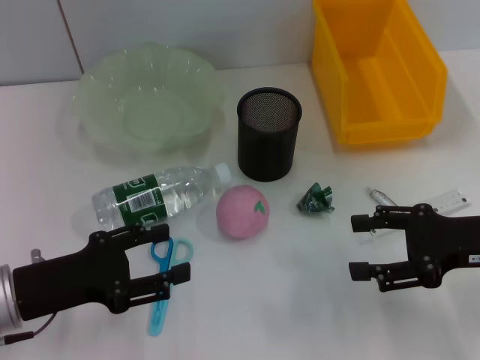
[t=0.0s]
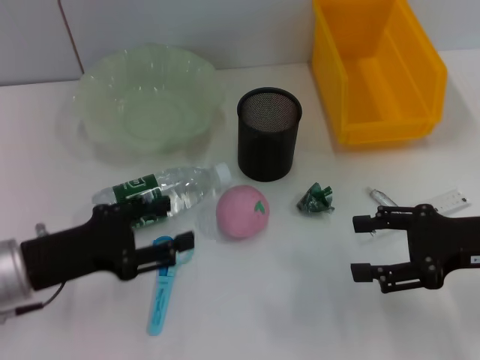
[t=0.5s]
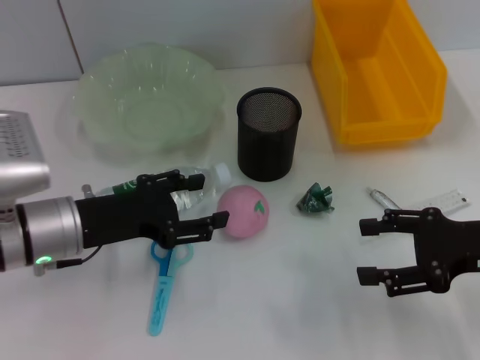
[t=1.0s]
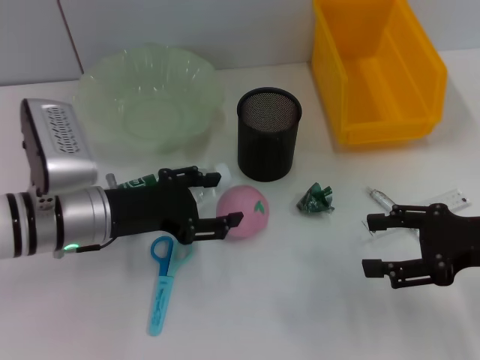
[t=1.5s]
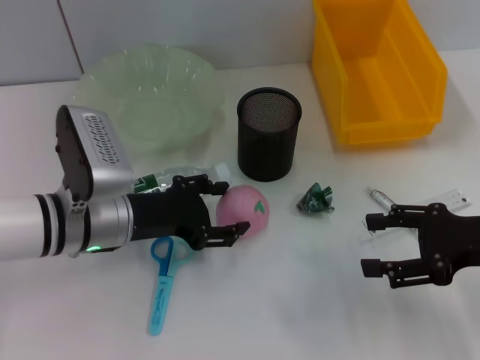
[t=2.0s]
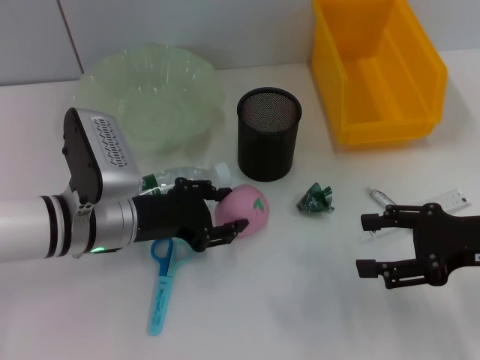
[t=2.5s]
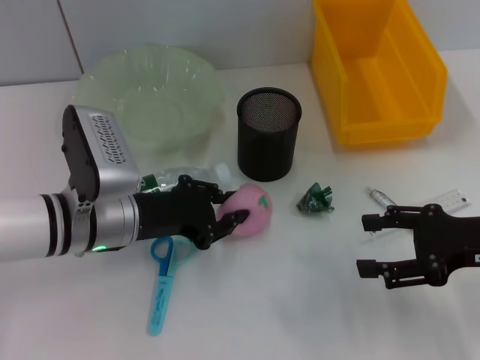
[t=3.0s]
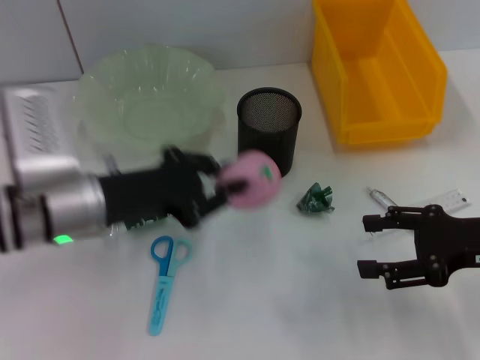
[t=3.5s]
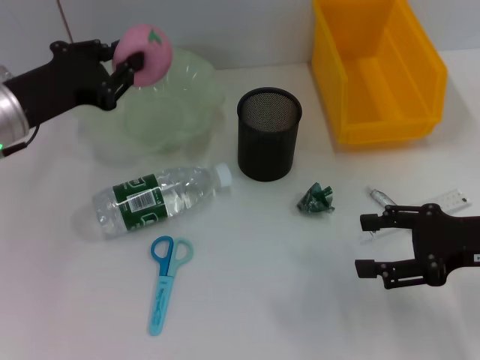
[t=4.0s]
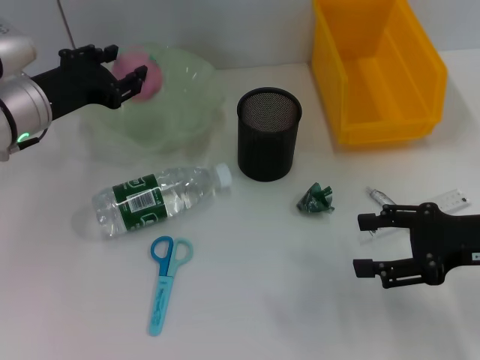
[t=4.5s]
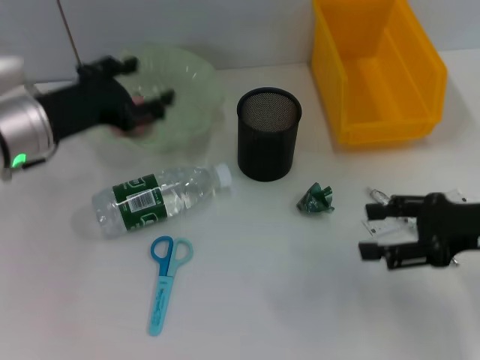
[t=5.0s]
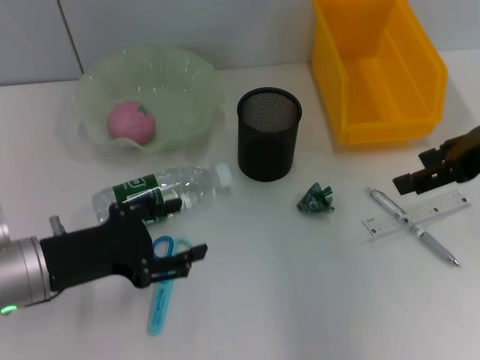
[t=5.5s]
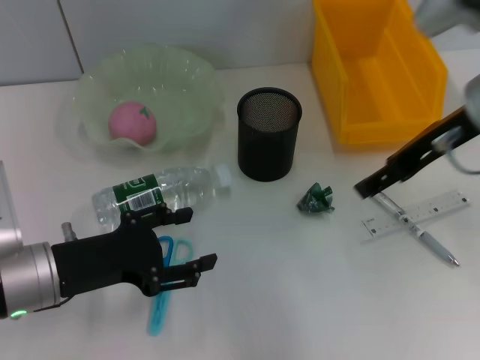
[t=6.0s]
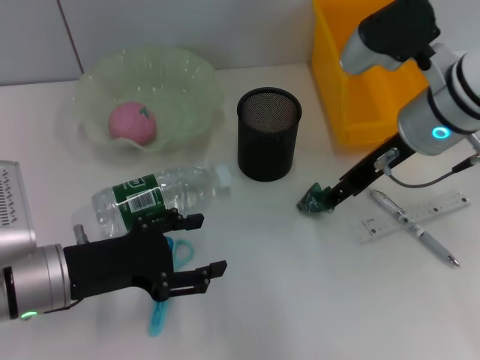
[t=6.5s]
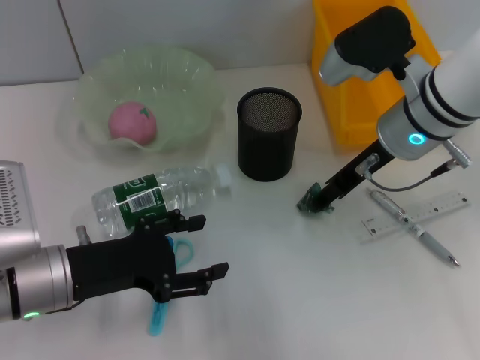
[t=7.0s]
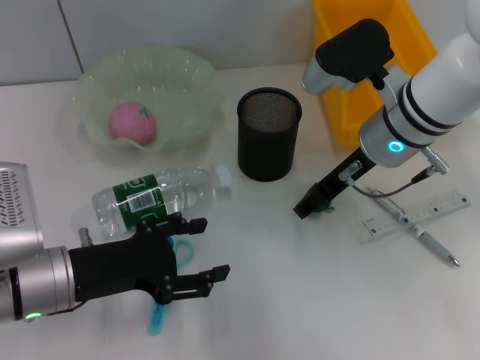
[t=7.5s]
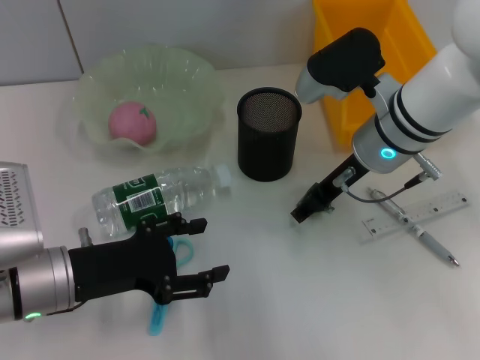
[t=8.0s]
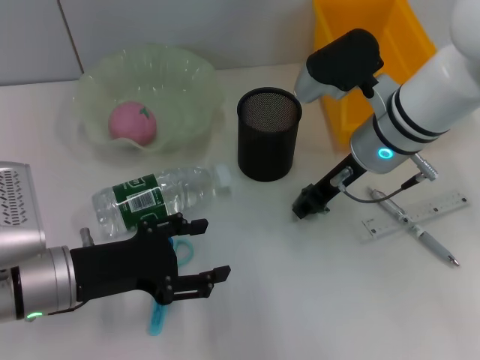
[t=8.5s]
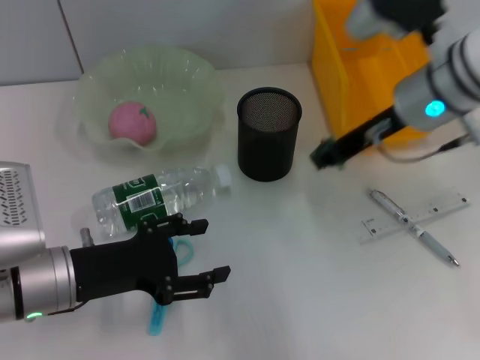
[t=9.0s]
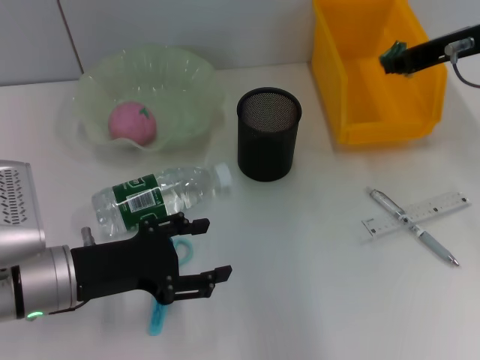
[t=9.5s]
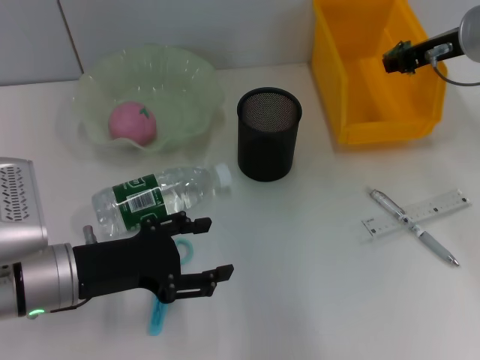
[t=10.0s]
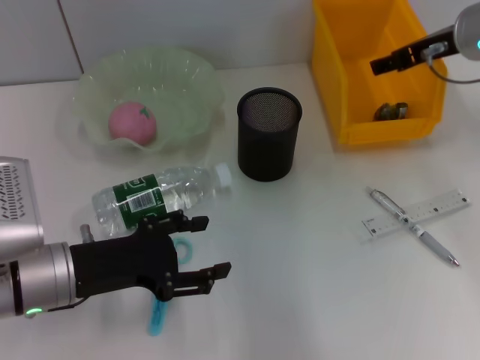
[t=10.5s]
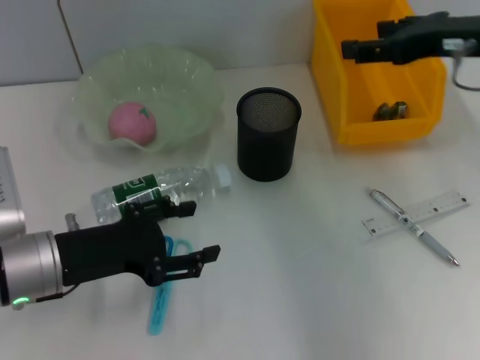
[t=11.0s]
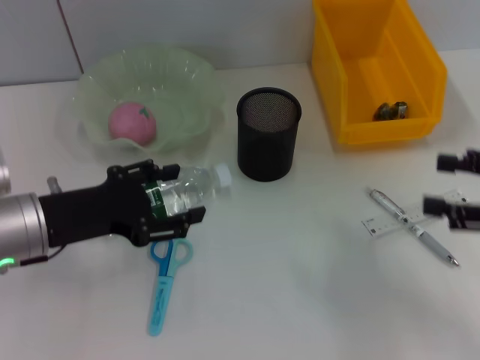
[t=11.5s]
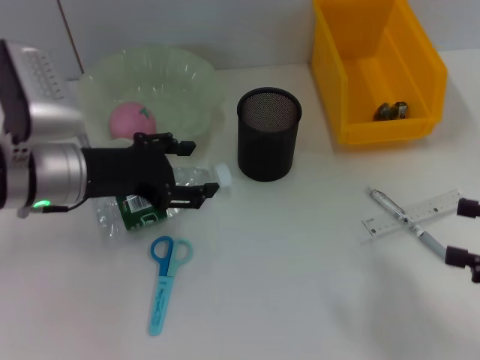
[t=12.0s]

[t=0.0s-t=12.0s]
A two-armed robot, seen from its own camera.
Step, t=0.0s to t=2.5s: Grab the peach with the left hand.
Step, t=3.0s to t=4.5s: Place the peach into the fruit bowl with the left hand.
Step, t=5.0s to t=8.5s: Grab the plastic with the right hand.
Step, t=9.0s to t=10.0s: Place the plastic into the trash can with the right hand.
t=0.0s to t=2.0s: The left gripper heads to the right and forward, covering approximately 10 cm.
t=2.0s to t=4.0s: The left gripper travels upward and to the left by roughly 10 cm, and closes its fingers.
t=4.0s to t=6.0s: The left gripper travels backward and downward by some 15 cm, and opens up, while the right gripper shifts roughly 15 cm upward, forward and to the left.
t=6.0s to t=8.0s: The right gripper heads downward and to the left, covering some 10 cm.
t=8.0s to t=10.0s: The right gripper goes some 10 cm to the right and upward, and closes.
t=10.0s to t=12.0s: The right gripper travels backward, to the right and downward by some 25 cm, and opens up; the left gripper travels forward and upward by approximately 10 cm.

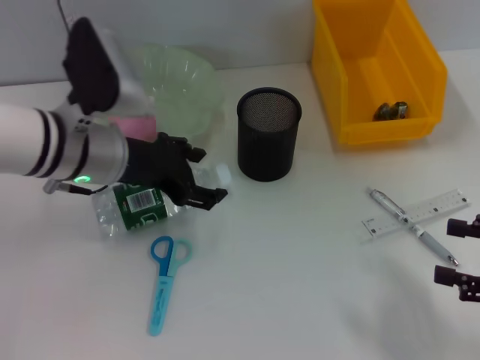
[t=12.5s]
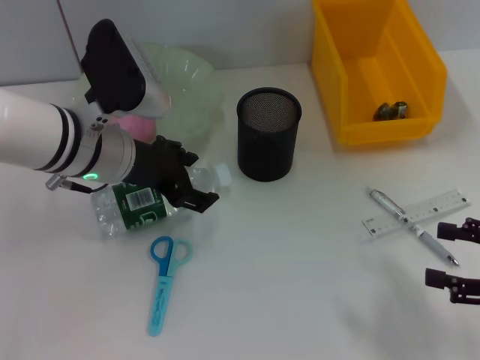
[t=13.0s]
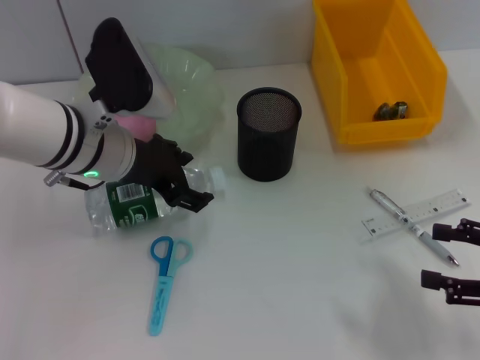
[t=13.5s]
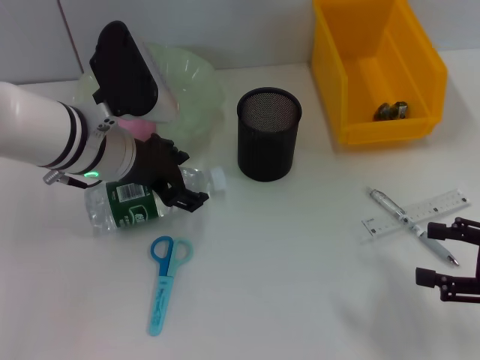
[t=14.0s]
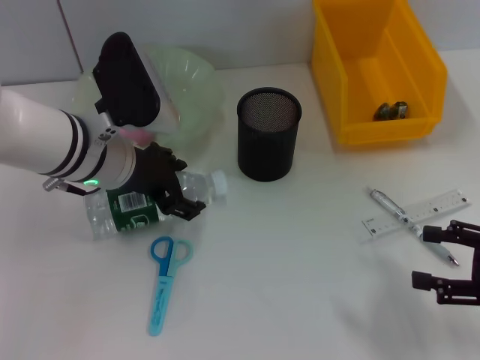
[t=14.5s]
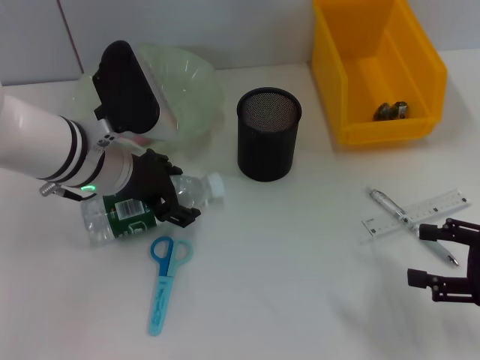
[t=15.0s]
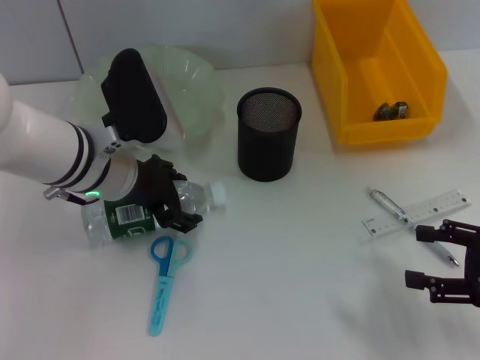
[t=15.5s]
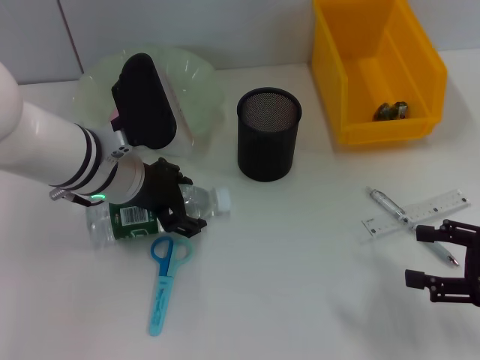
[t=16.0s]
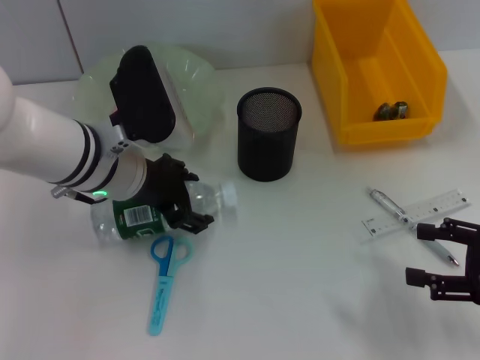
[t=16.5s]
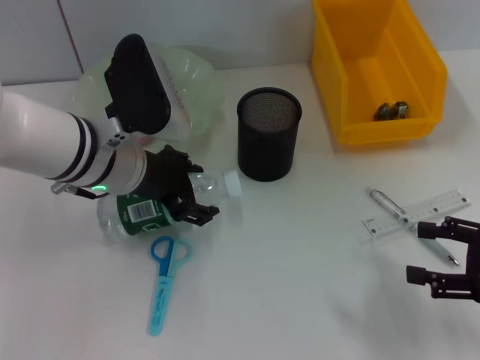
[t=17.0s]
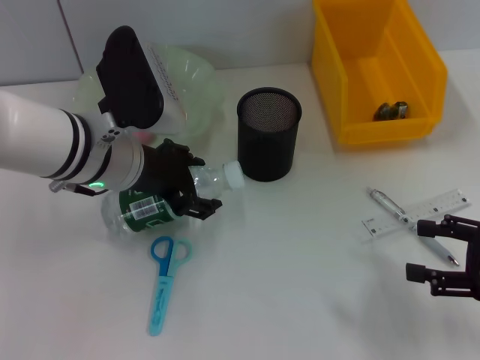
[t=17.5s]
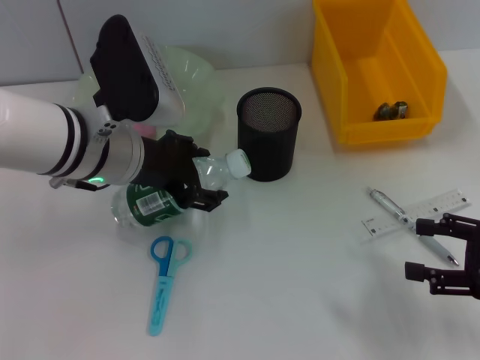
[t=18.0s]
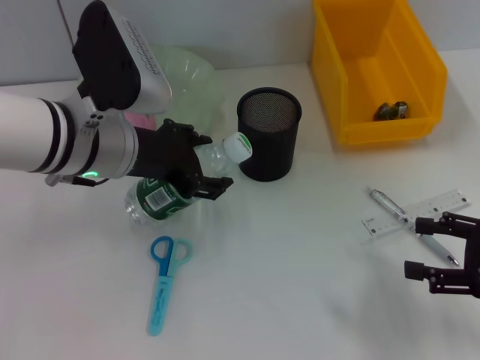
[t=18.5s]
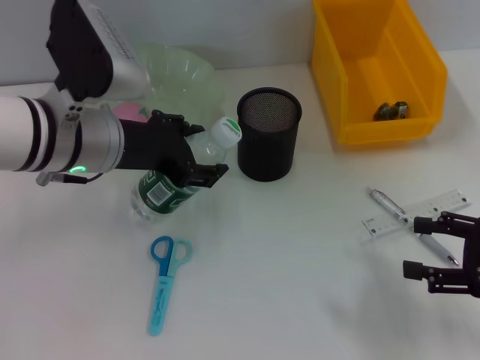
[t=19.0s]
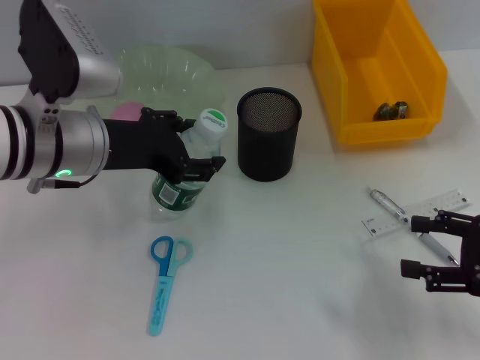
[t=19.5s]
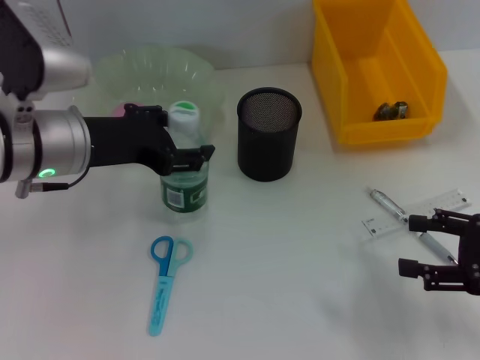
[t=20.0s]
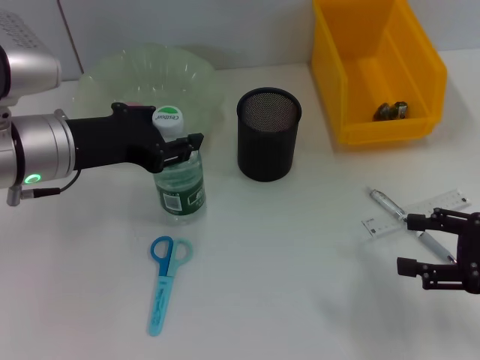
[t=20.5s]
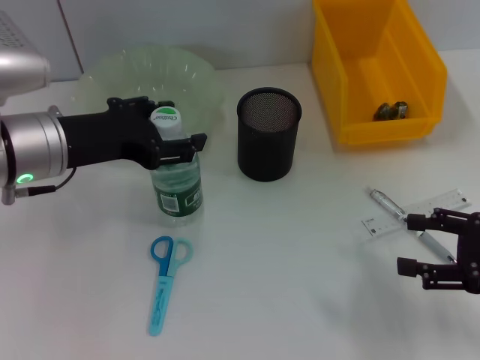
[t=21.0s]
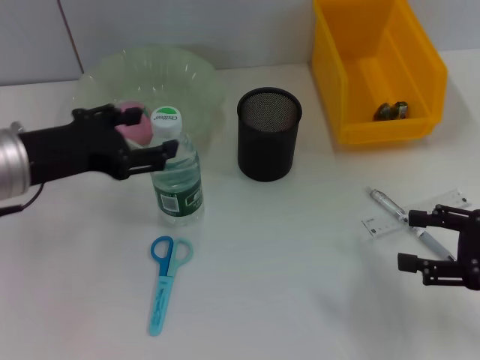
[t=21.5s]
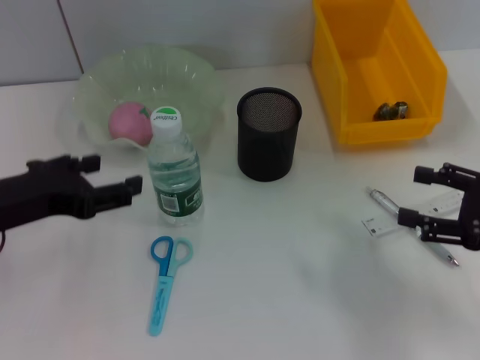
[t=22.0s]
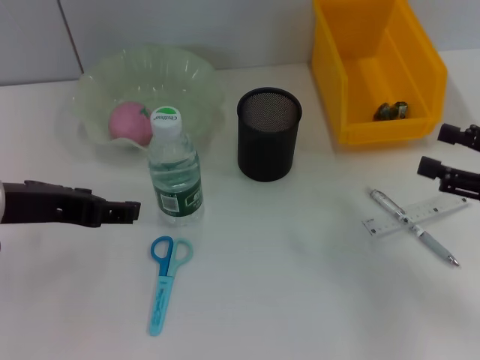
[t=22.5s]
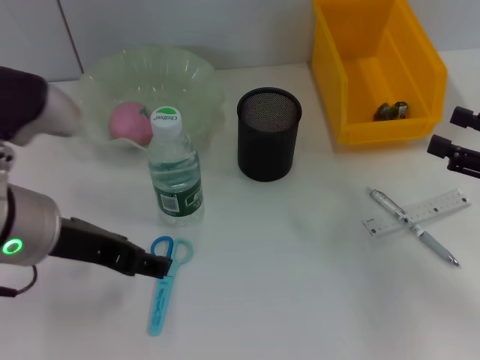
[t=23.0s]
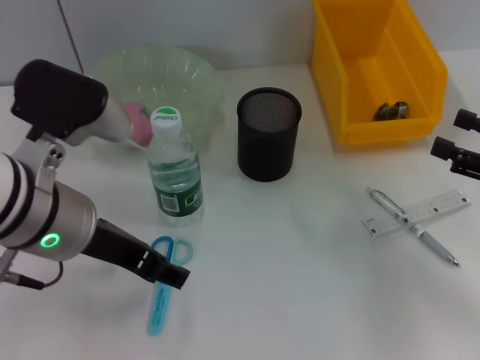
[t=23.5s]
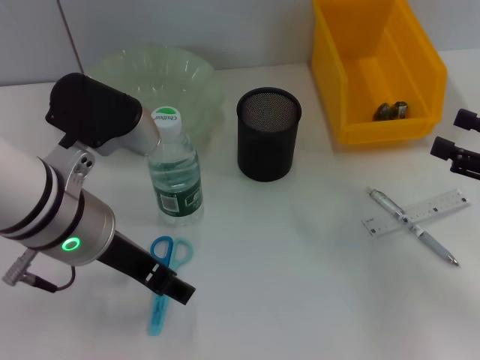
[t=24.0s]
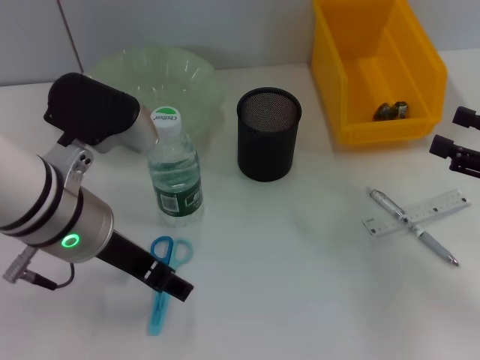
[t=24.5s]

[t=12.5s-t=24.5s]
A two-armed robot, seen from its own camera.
Step, t=12.5s to t=16.0s: Grab the water bottle with the left hand.
Step, t=16.5s to t=20.5s: Place the water bottle on the table with the left hand.
t=12.5s to t=18.5s: The grippers stay close to where they were, moving slightly.
t=18.5s to t=20.5s: The left gripper shifts some 5 cm to the left, and closes.
t=20.5s to t=22.5s: The left gripper goes some 5 cm backward, and opens up.
t=22.5s to t=24.5s: The left gripper shifts roughly 5 cm to the right.

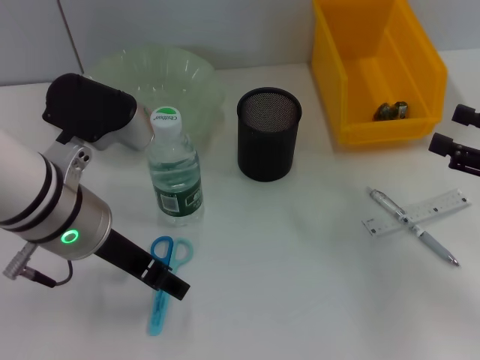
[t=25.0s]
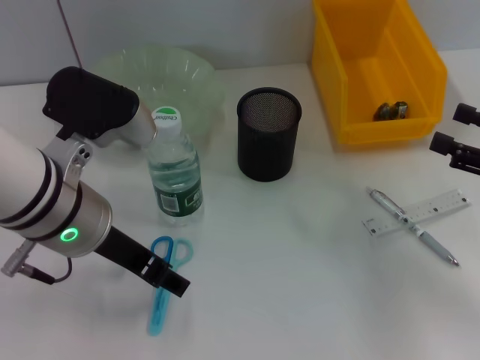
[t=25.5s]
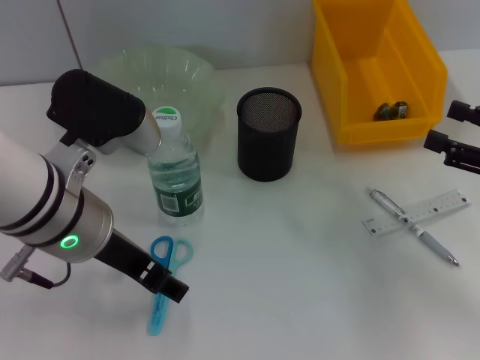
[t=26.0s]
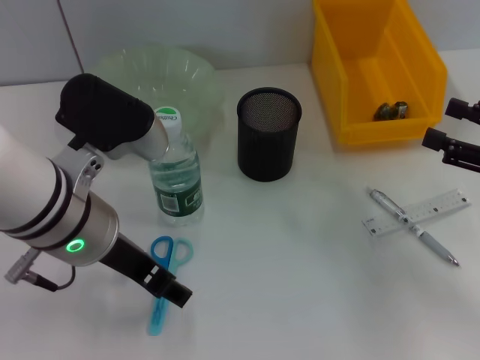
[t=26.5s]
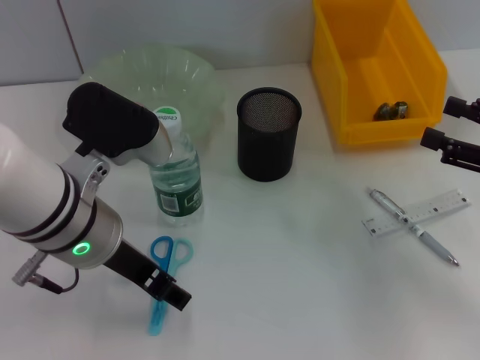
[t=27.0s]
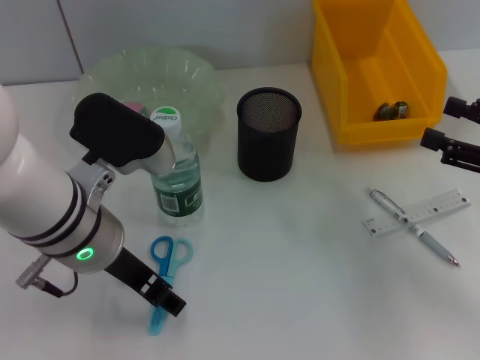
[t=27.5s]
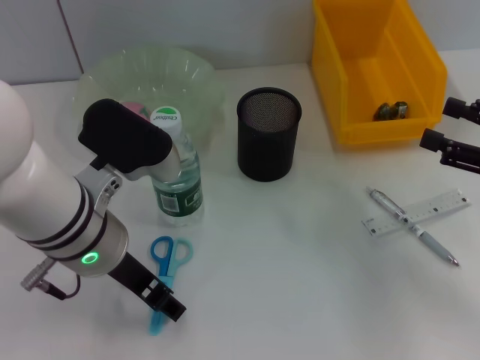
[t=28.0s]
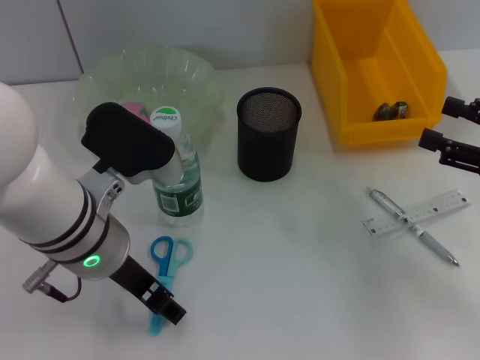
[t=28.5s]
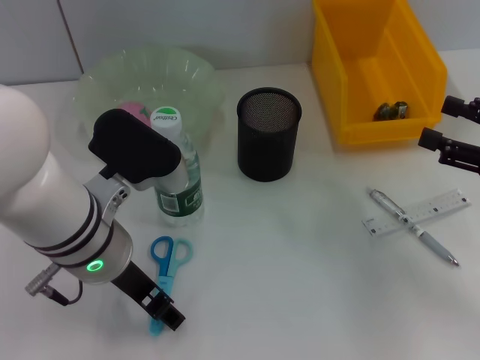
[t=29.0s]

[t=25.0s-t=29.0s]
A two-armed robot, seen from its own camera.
t=25.0s to t=29.0s: The grippers stay close to where they were, moving slightly.
